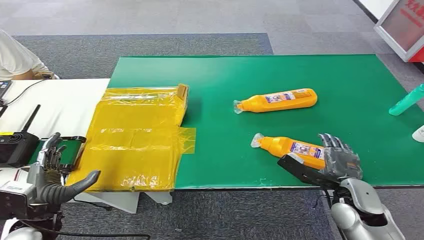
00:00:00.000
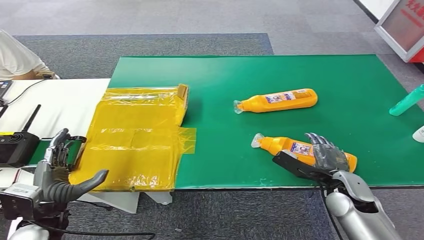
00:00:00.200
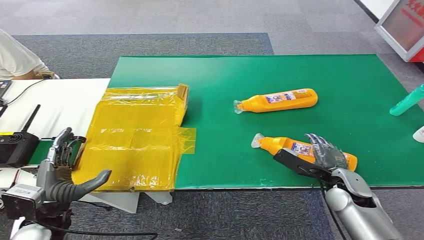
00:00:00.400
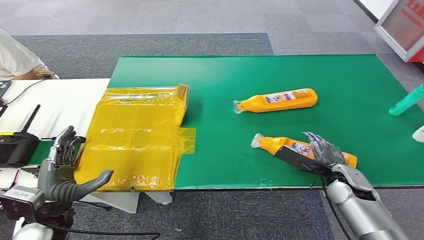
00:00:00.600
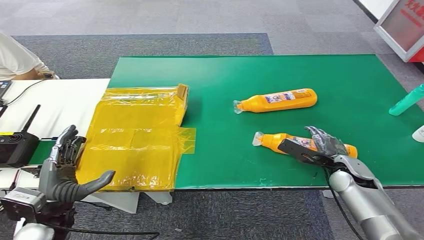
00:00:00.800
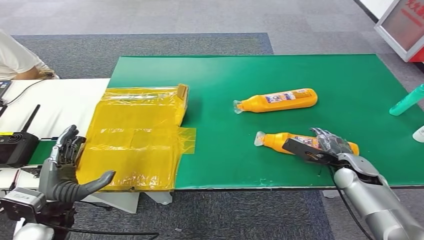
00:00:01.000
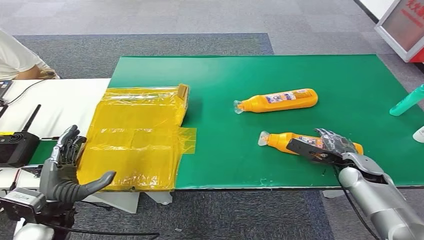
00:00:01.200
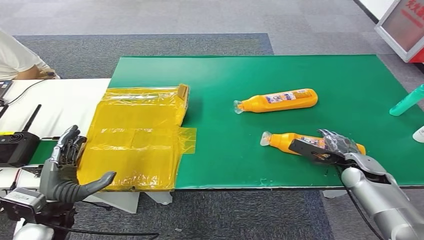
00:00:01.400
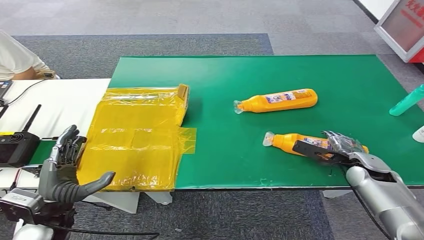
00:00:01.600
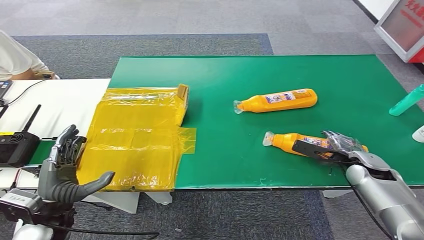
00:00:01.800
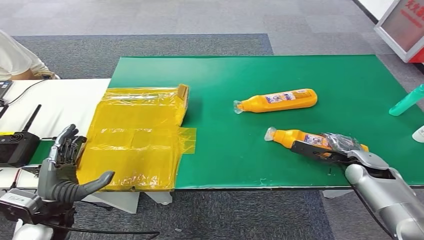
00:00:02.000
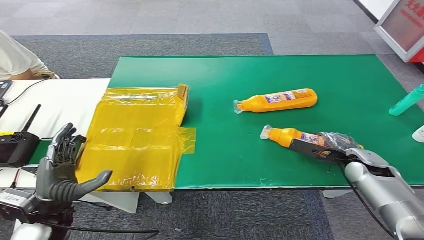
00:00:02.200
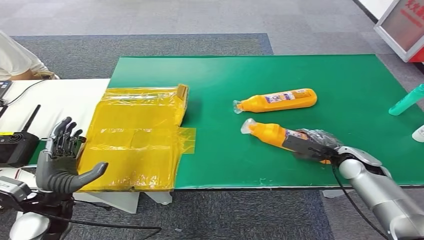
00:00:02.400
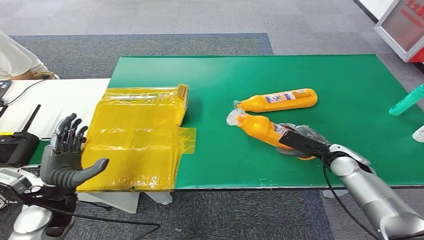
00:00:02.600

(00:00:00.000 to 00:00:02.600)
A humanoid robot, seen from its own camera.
Step, 00:00:00.000 - 00:00:02.600: Pick up the bottle from the table.

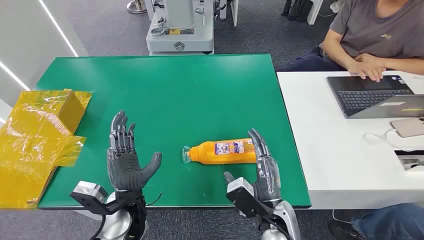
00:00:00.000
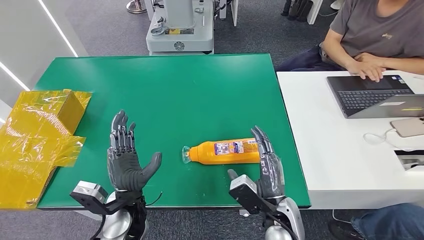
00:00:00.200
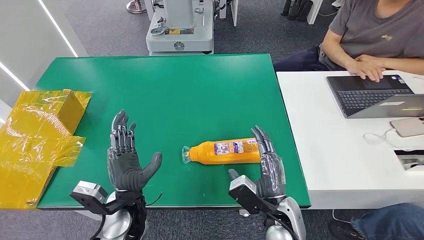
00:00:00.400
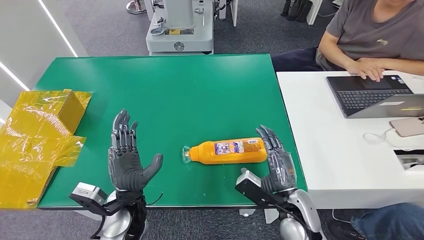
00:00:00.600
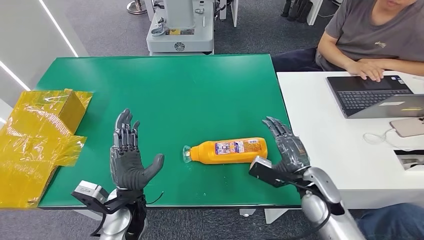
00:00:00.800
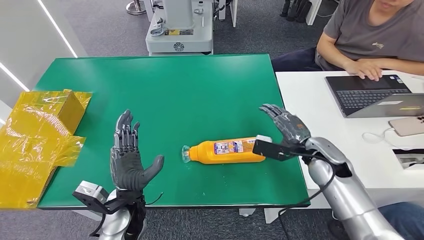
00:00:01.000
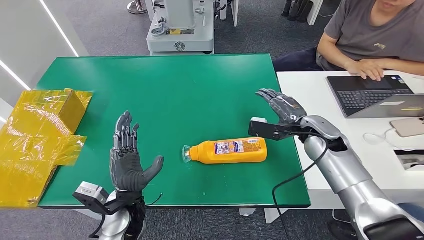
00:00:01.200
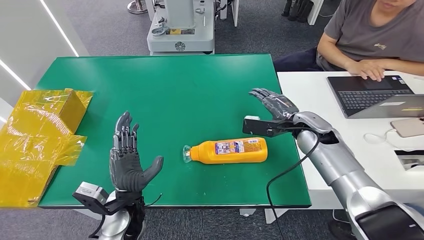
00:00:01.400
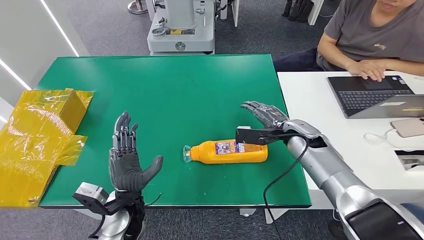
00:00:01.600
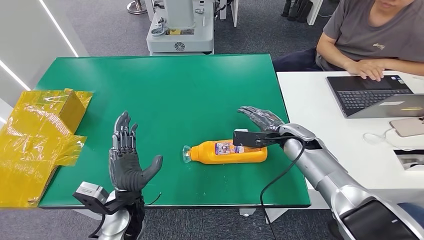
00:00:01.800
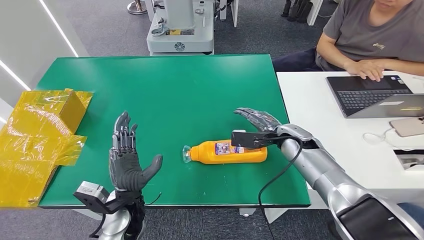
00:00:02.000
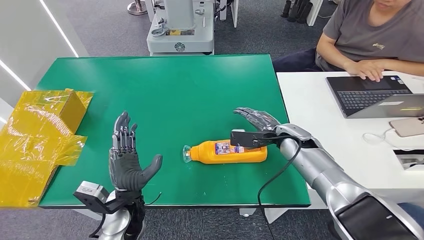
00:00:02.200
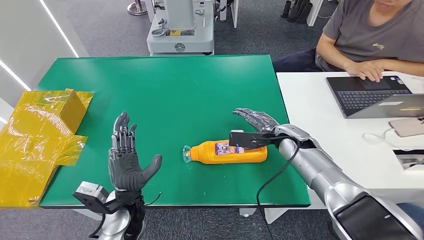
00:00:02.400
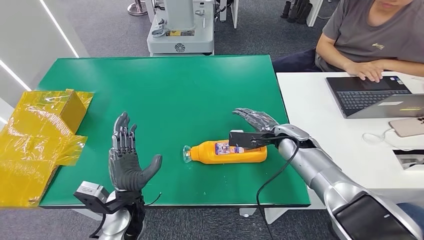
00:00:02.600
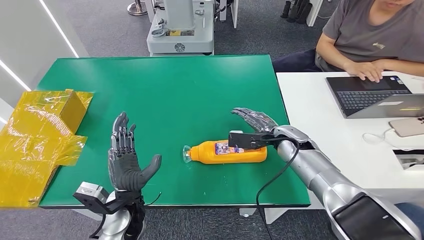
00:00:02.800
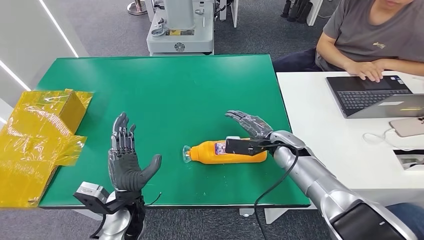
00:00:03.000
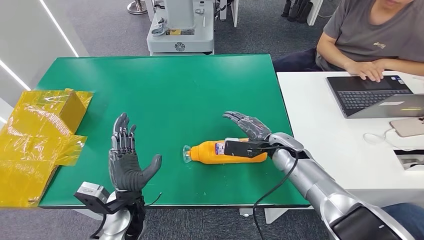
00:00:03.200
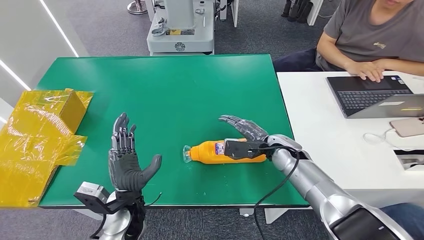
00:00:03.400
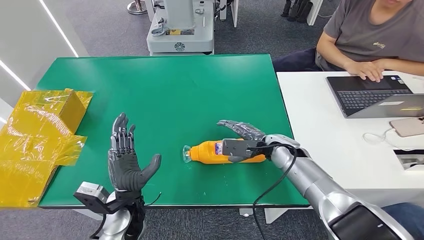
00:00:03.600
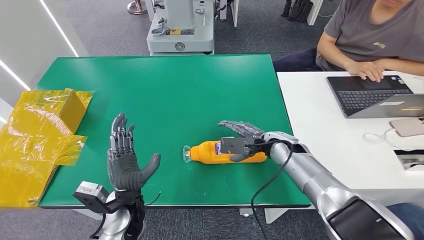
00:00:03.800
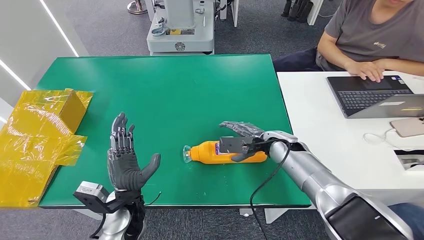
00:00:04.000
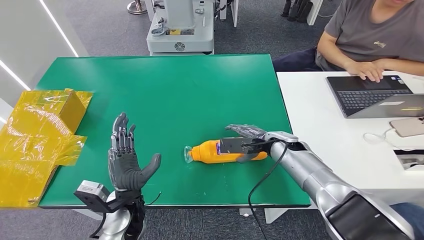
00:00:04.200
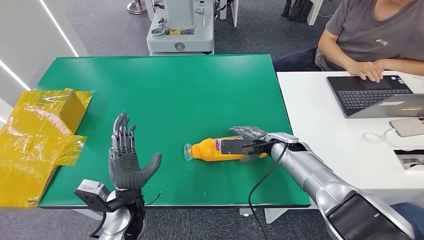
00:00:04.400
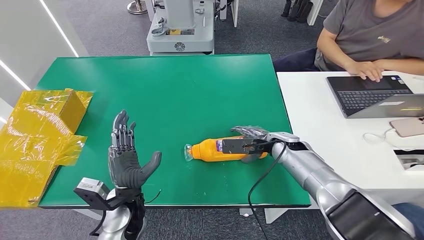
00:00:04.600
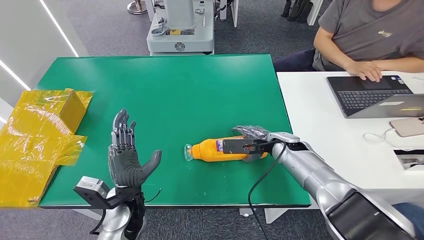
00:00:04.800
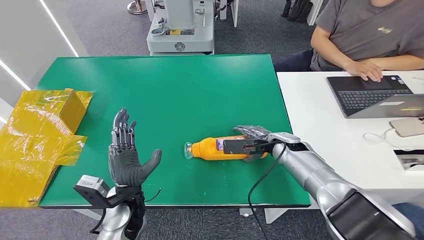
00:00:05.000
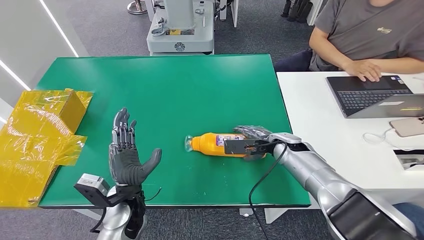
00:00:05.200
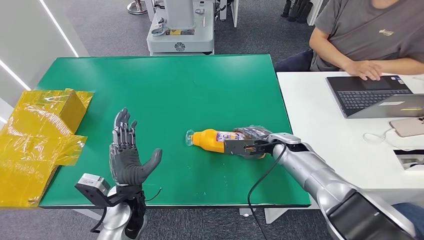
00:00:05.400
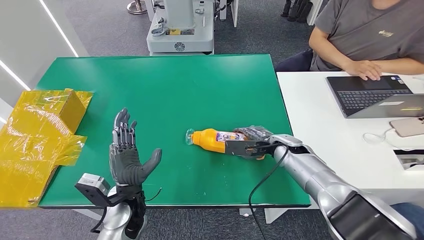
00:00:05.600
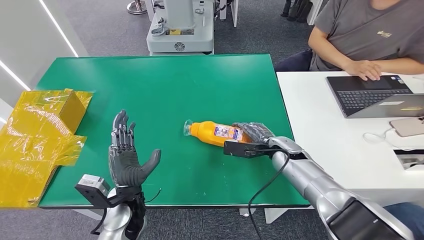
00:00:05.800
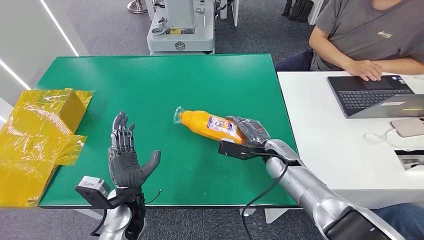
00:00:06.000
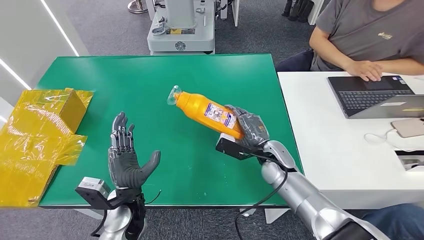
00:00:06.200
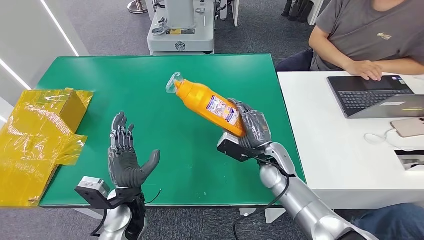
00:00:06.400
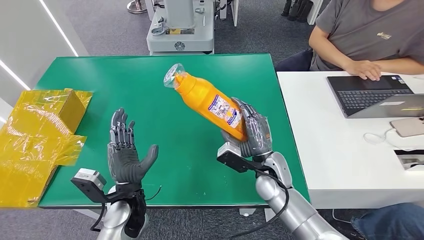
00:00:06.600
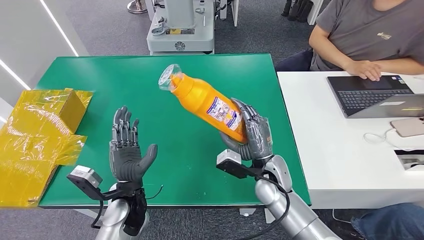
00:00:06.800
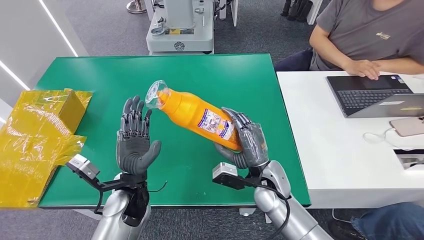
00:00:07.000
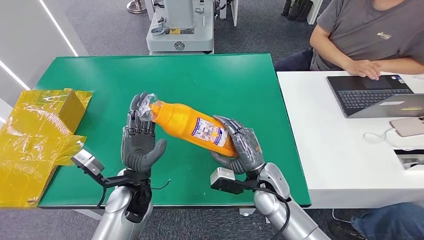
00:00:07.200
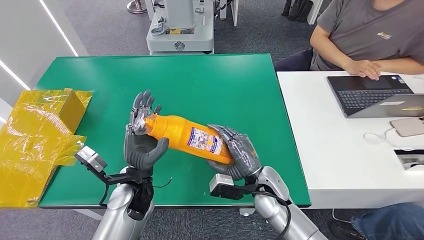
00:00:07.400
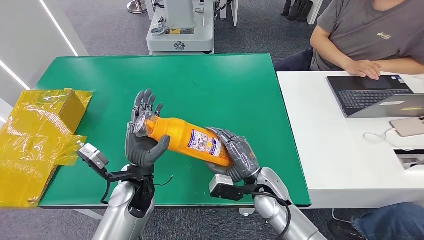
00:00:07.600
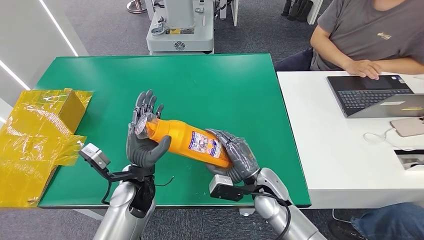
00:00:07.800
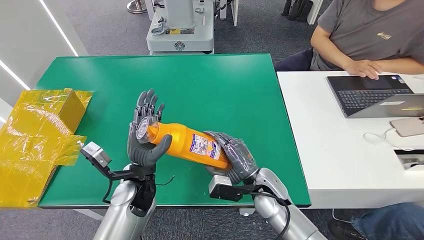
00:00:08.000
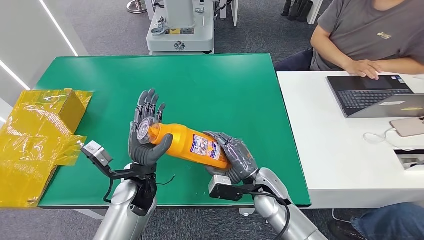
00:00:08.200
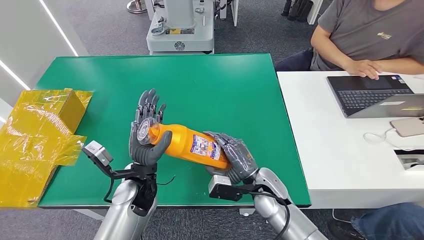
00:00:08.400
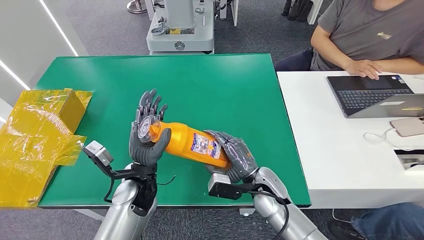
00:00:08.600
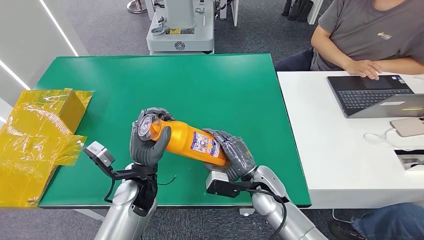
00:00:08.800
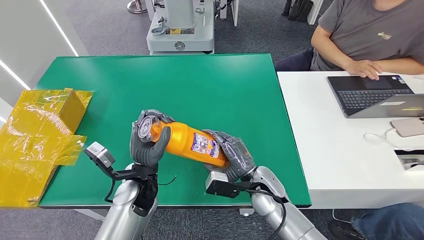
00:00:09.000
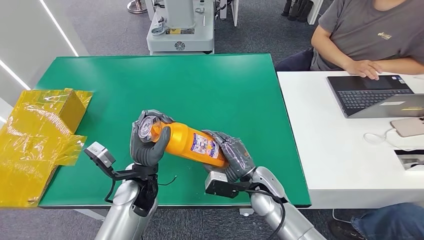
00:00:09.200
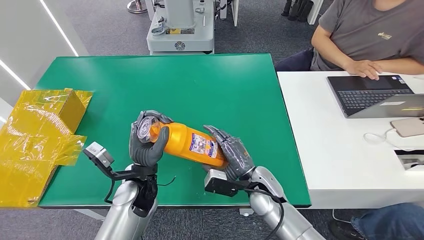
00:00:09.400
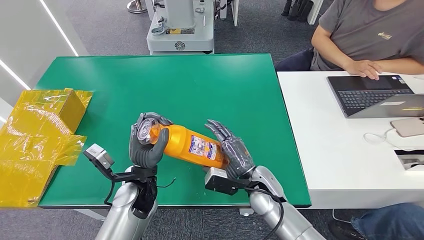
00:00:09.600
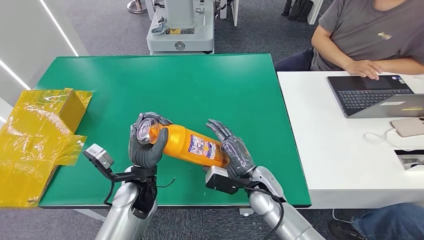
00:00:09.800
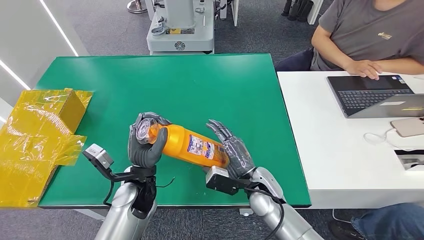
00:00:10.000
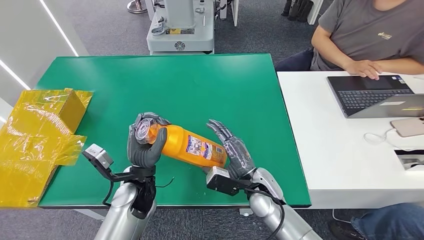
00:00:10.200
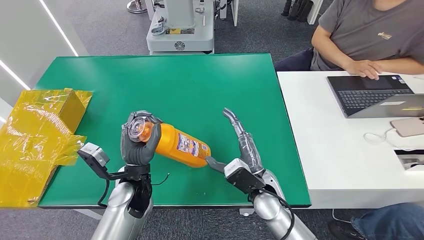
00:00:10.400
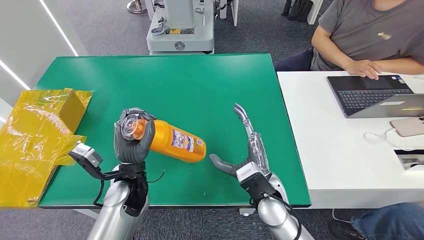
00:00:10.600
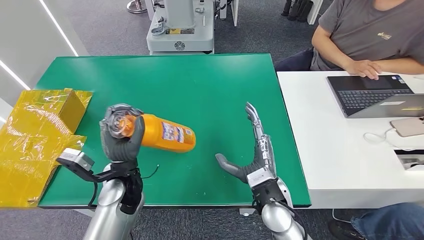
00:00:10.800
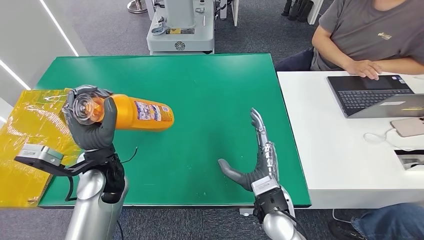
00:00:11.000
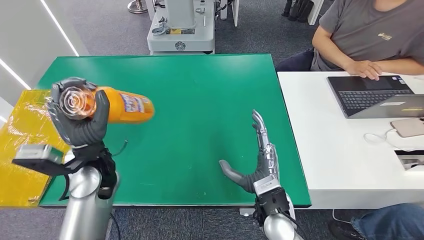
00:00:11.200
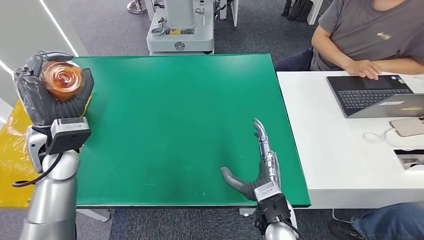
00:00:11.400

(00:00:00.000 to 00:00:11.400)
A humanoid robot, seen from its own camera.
Step, 00:00:00.000 - 00:00:06.800: Pick up the bottle from the table.
00:00:01.400 - 00:00:02.800: The right hand goes roughly 5 cm downward.
00:00:02.800 - 00:00:05.600: The hands stay close to where they were, moving slightly.
00:00:05.600 - 00:00:07.200: The right hand heads backward and to the left, covering about 15 cm.
00:00:07.200 - 00:00:10.000: The hands move only a little.
00:00:10.000 - 00:00:11.400: The left hand is displaced to the left, upward and forward by roughly 20 cm. The right hand goes some 10 cm backward.

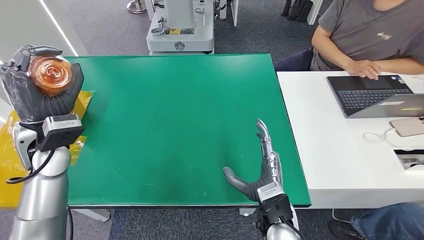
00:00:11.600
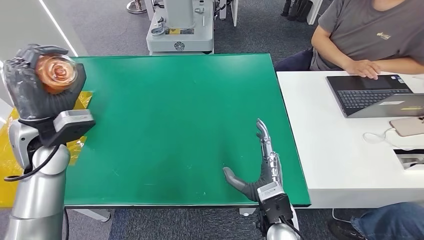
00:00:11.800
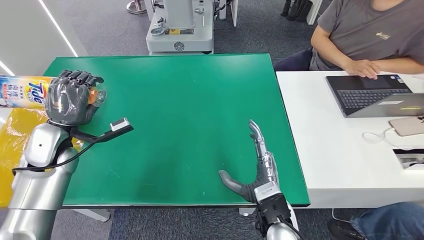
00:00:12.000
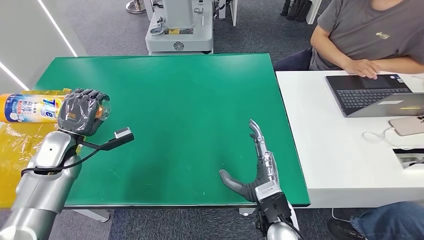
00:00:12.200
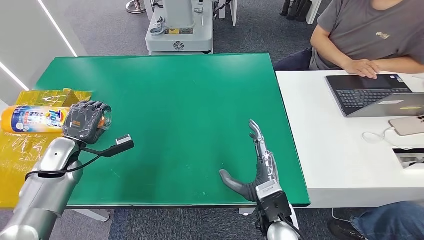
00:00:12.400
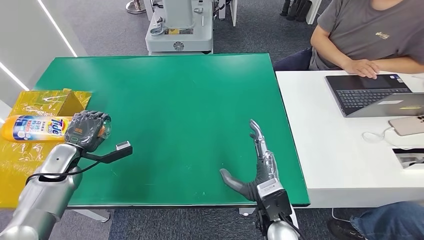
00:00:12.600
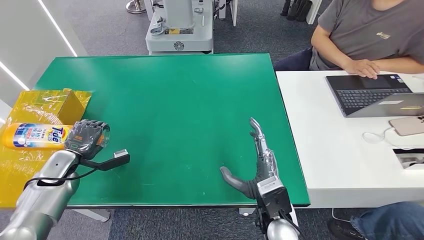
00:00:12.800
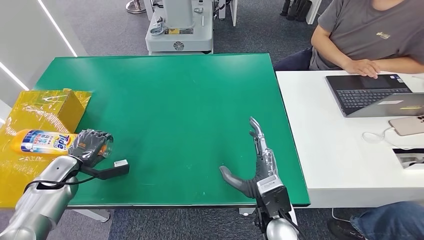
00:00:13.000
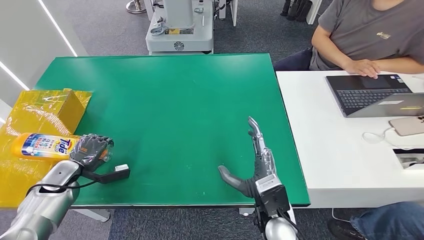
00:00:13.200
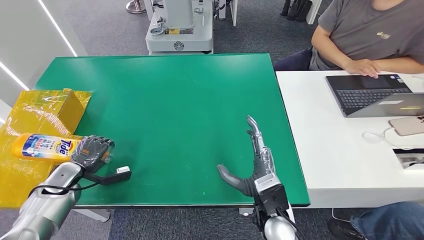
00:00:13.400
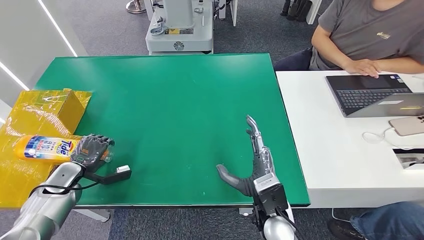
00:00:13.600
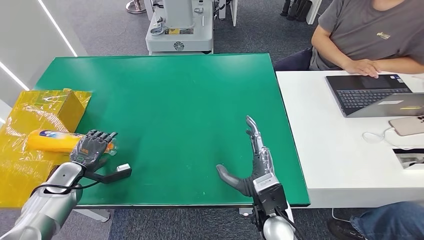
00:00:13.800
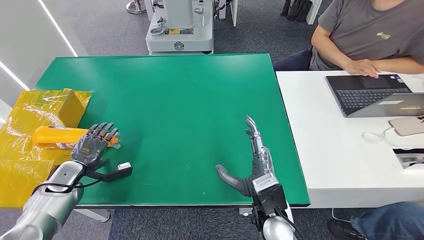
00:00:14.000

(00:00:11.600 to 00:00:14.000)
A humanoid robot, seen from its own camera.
Step, 00:00:11.600 - 00:00:14.000: Turn the bottle to the front side.
00:00:11.600 - 00:00:12.800: The left hand moves downward and to the left, some 20 cm.
00:00:12.800 - 00:00:14.000: The hands stay close to where they were, moving slightly.
